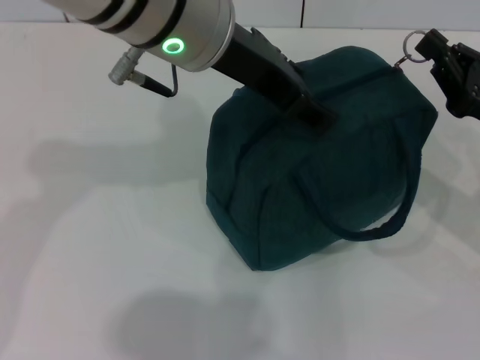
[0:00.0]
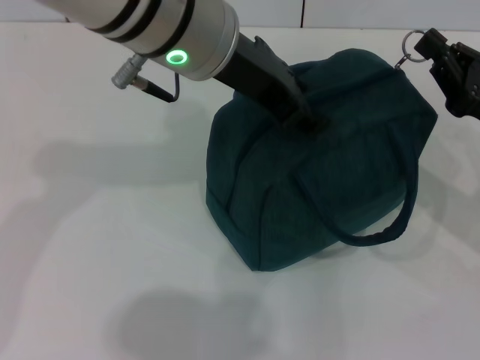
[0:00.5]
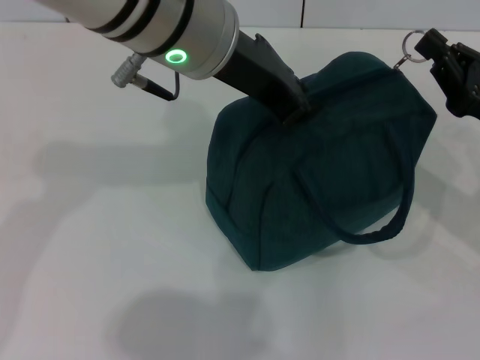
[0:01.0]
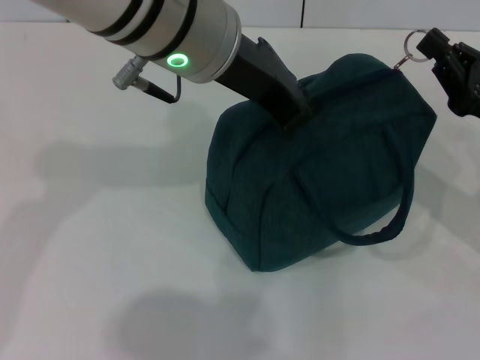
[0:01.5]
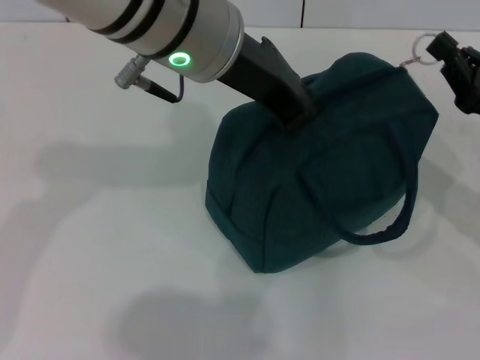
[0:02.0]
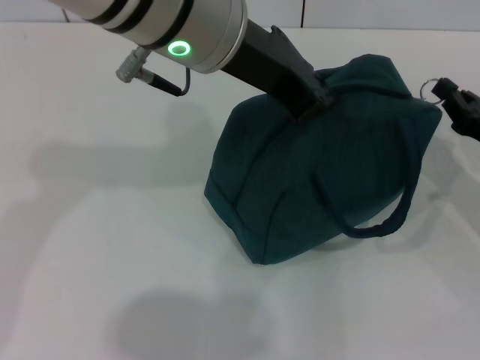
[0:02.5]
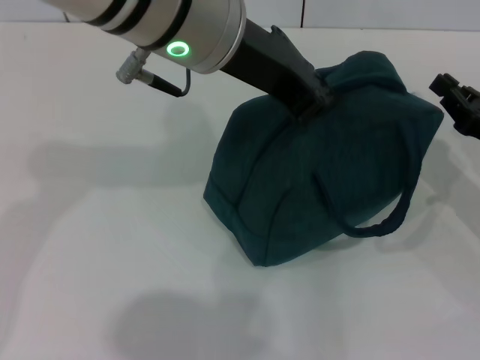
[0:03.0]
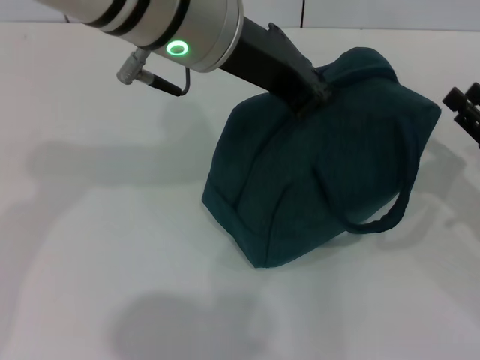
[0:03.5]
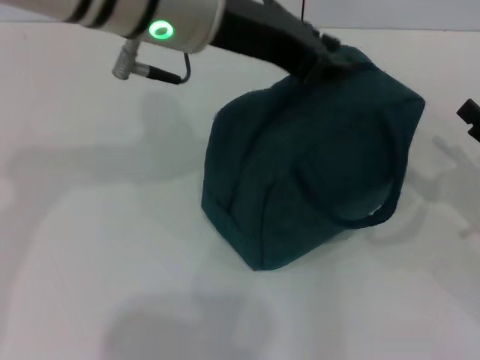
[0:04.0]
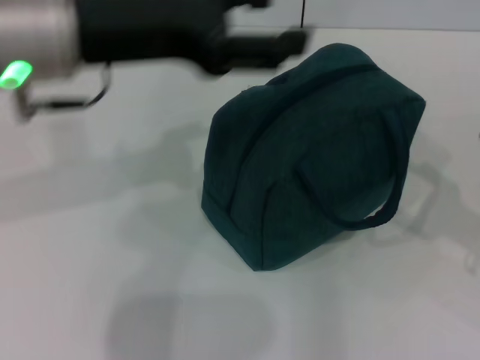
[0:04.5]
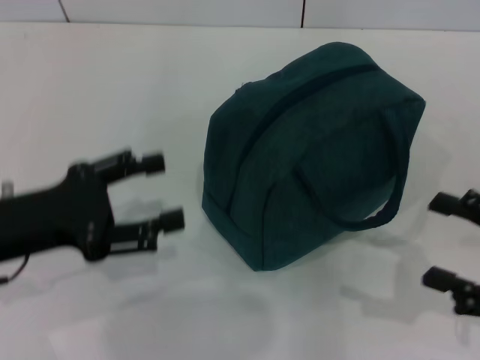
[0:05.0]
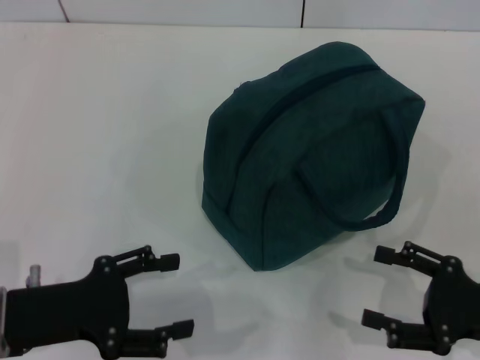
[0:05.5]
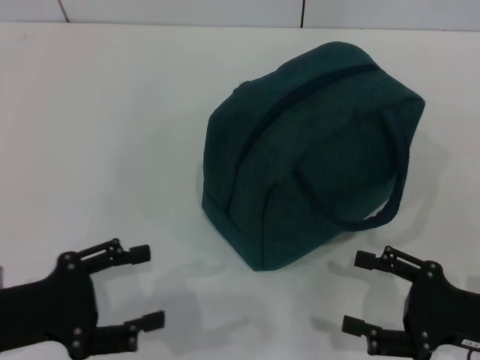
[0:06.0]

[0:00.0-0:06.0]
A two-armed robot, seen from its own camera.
Step, 0:00.0 to 0:02.5: Zip up the lunch bag with your right hand.
Step, 0:03.5 to 0:04.0: Hold the lunch bag with your left hand.
0:00.0 to 0:02.0: The left gripper closes up.
0:02.0 to 0:04.0: The right gripper shifts by about 5 cm, and opens.
0:04.0 to 0:06.0: The right gripper shifts some 10 cm backward and to the left. Meanwhile the left gripper is displaced downward, to the left and backward by approximately 35 cm, and opens its fingers.

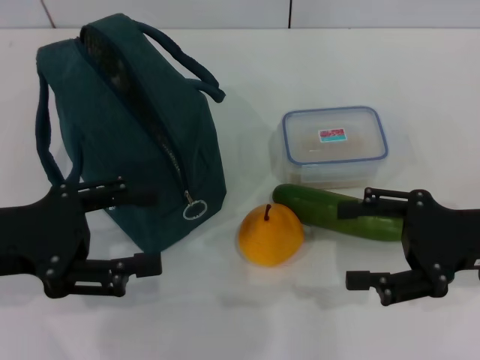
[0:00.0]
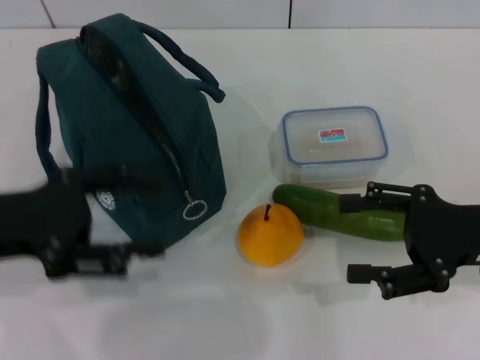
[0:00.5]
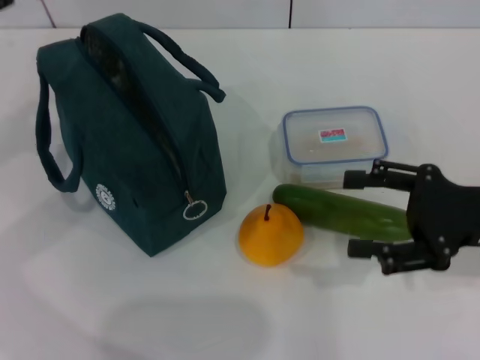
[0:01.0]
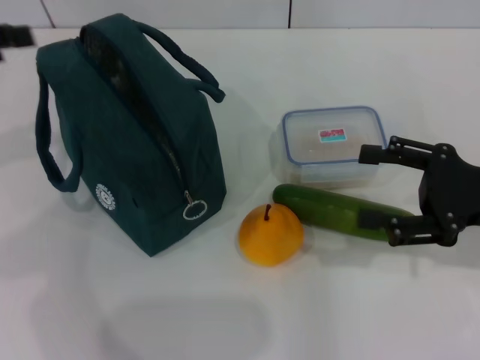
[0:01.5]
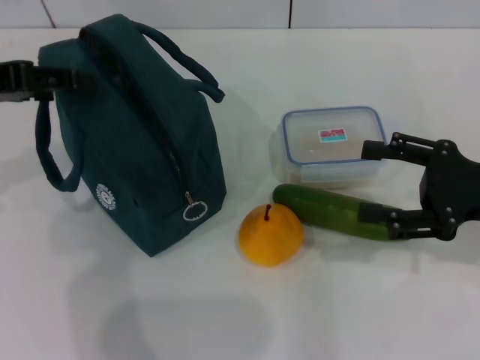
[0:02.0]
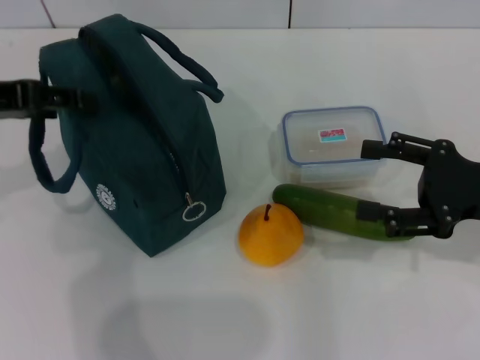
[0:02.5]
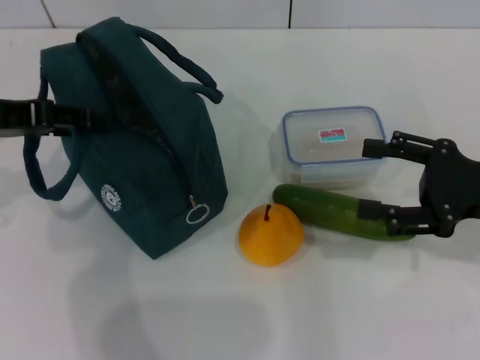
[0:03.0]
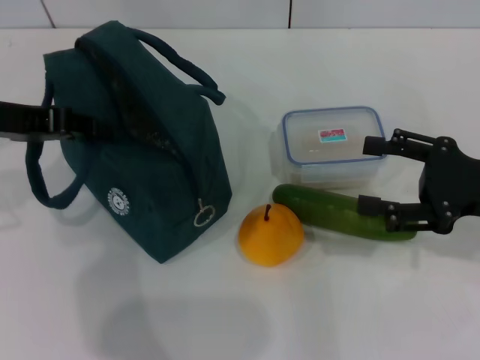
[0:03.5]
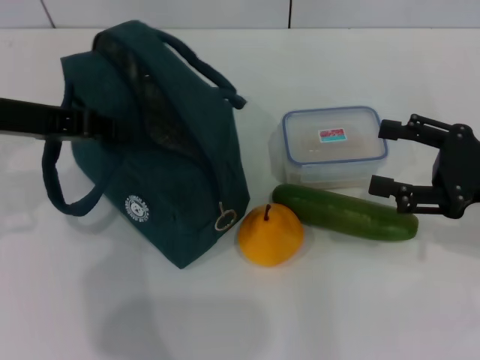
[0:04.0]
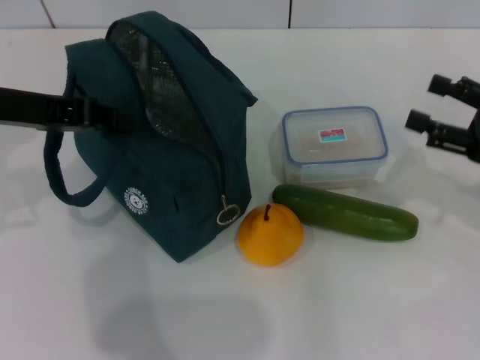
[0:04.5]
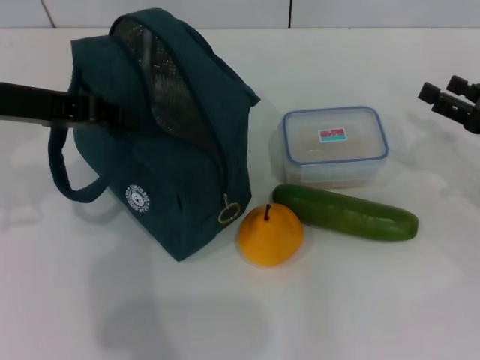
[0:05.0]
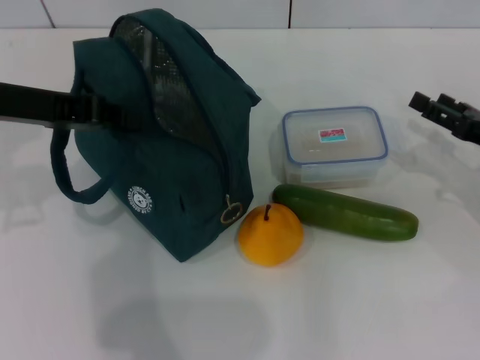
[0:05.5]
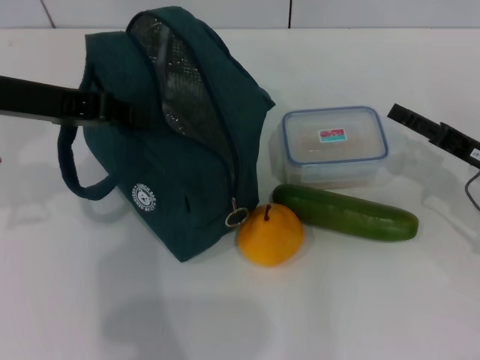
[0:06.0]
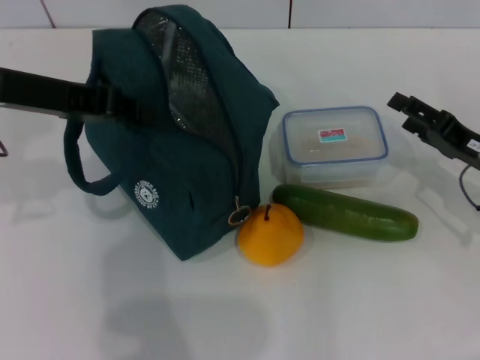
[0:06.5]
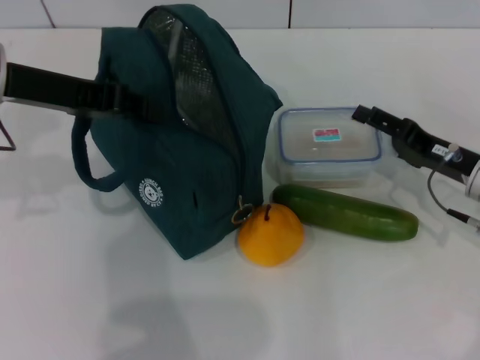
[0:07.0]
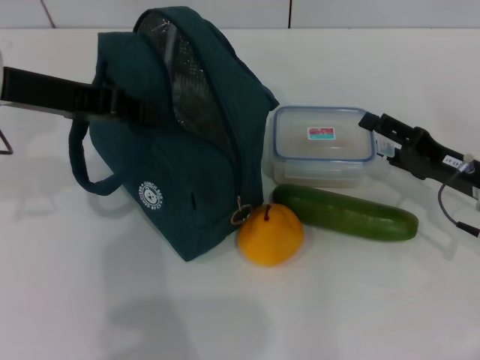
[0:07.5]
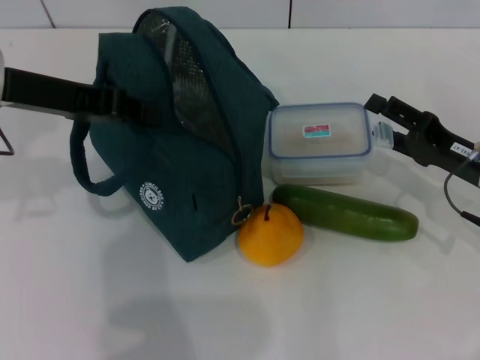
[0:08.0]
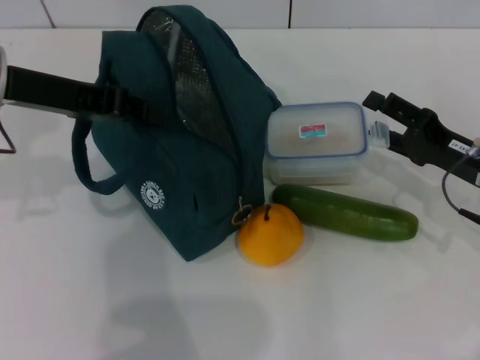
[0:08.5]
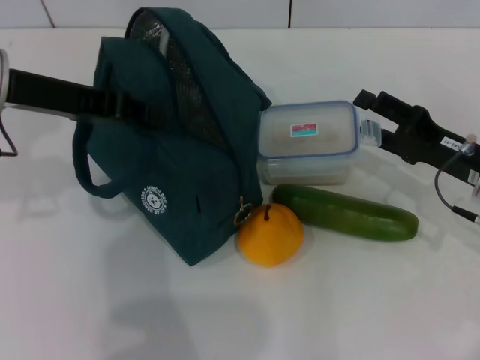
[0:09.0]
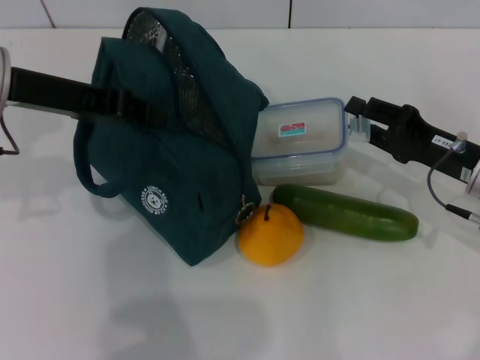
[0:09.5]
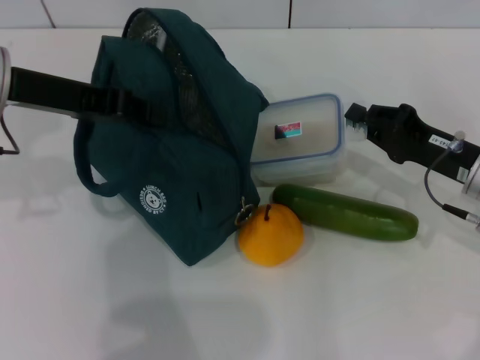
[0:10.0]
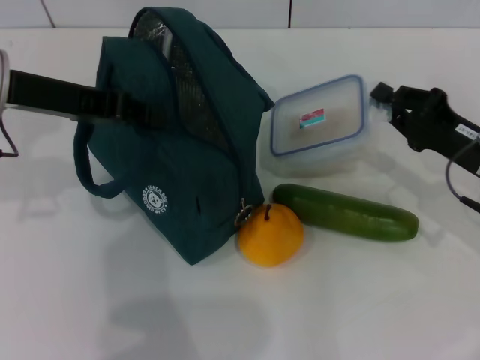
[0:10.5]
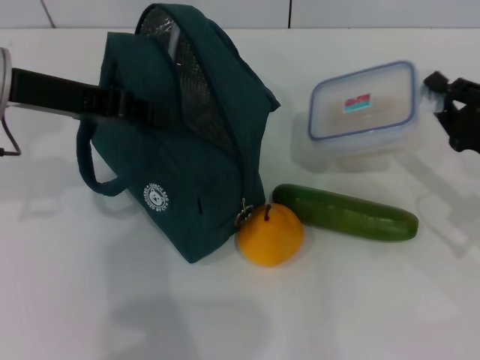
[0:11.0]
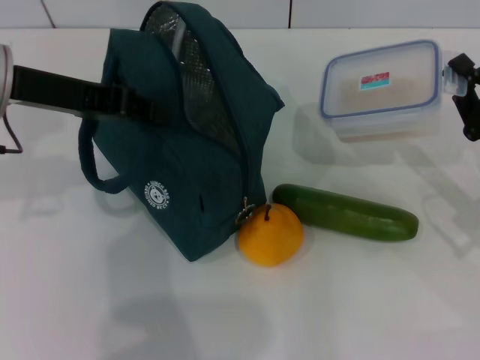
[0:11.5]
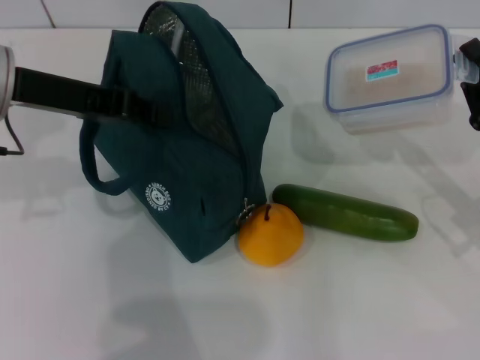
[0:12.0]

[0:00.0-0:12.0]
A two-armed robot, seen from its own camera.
Step, 0:00.0 to 0:05.0: Hold the lunch bag with your left hand.
Step, 0:05.5 to 0:09.5: Pick up the lunch box with your right hand.
0:00.0 to 0:02.0: The left gripper heads upward and forward, covering approximately 10 cm.
0:02.0 to 0:04.0: The left gripper closes.
0:04.0 to 0:06.0: The right gripper goes some 5 cm downward.
0:08.0 to 0:10.0: The right gripper closes its fingers.
0:10.0 to 0:12.0: The right gripper shifts by about 5 cm.

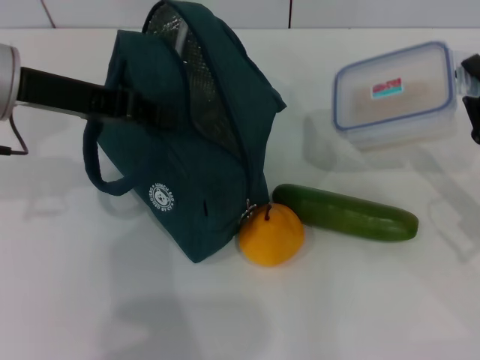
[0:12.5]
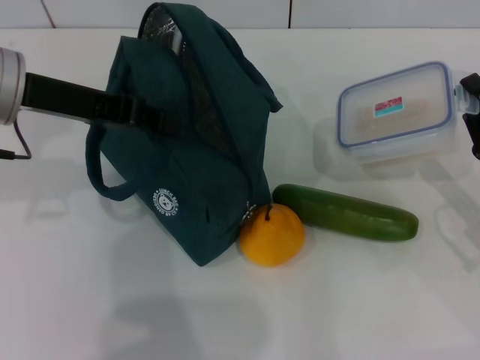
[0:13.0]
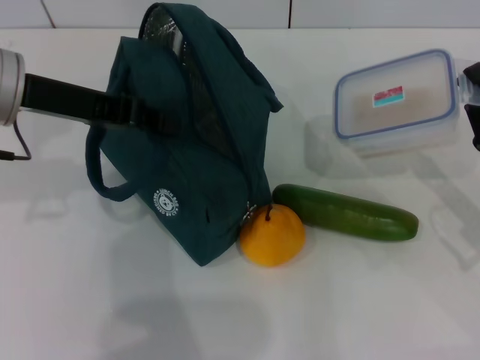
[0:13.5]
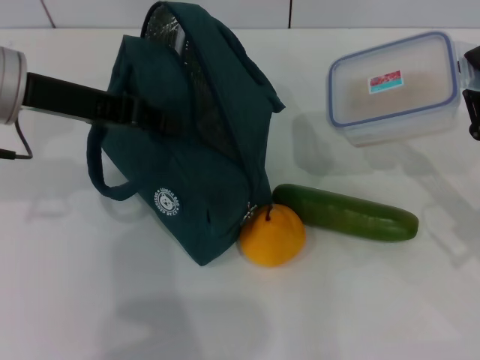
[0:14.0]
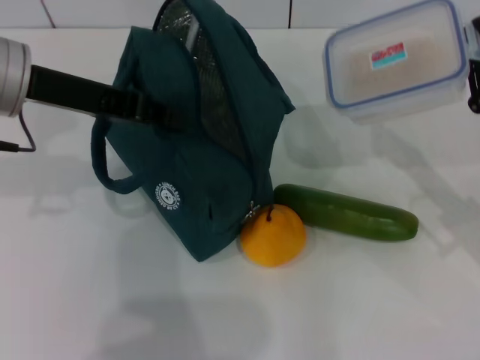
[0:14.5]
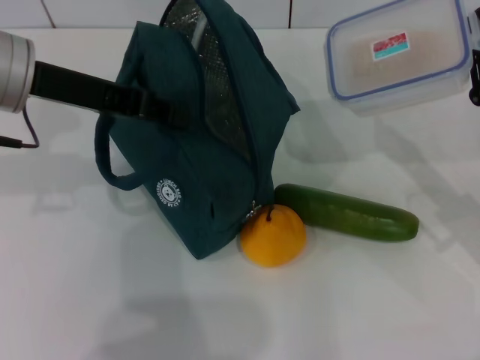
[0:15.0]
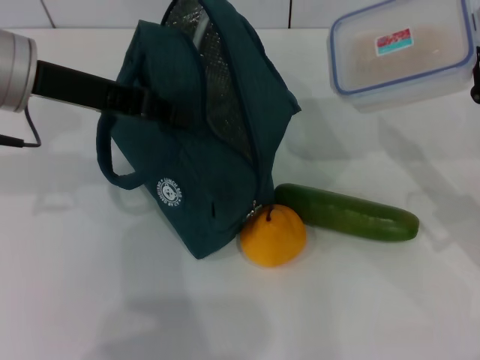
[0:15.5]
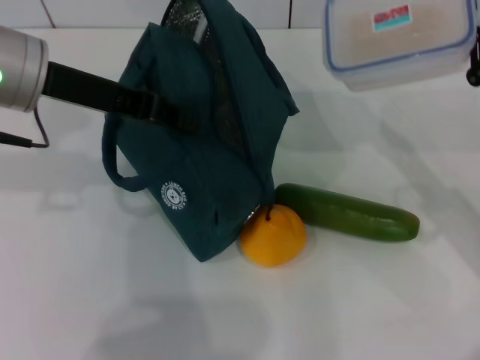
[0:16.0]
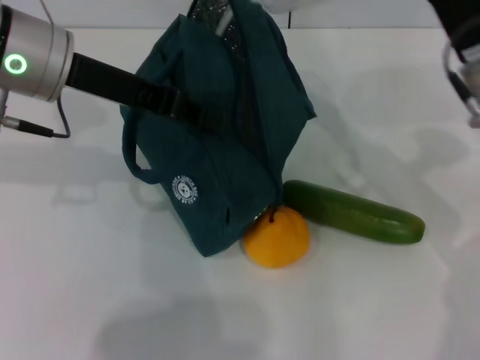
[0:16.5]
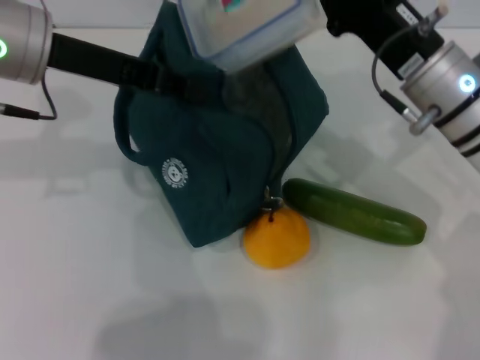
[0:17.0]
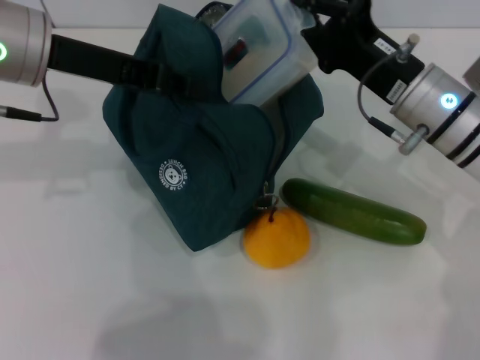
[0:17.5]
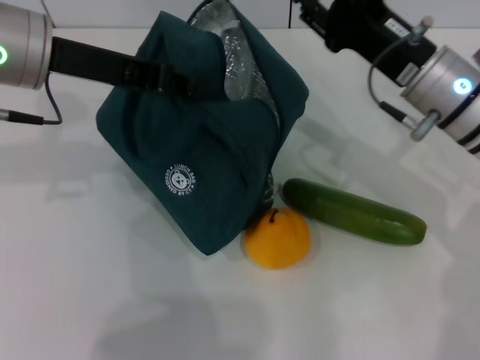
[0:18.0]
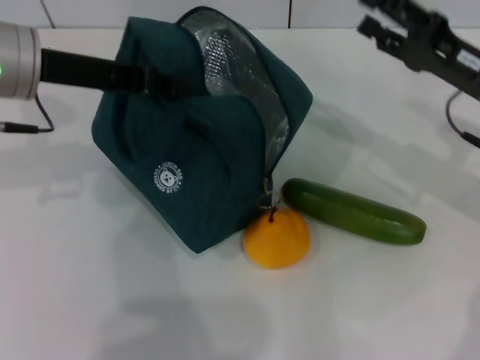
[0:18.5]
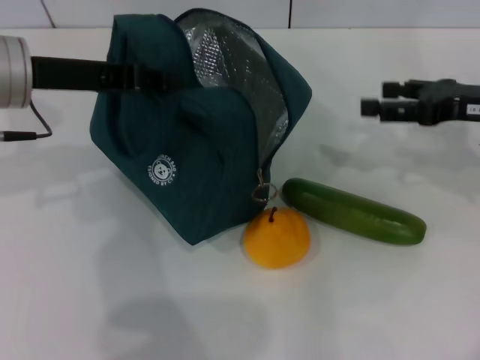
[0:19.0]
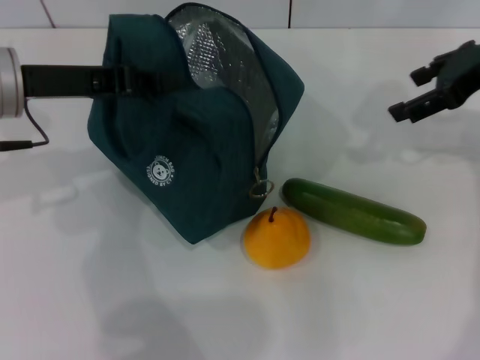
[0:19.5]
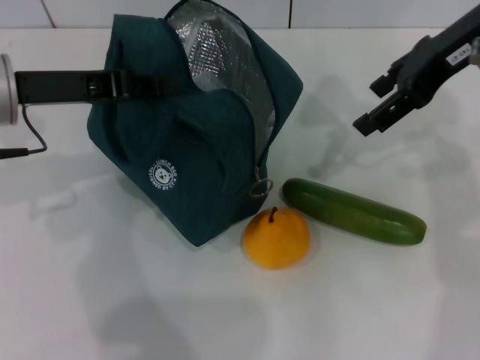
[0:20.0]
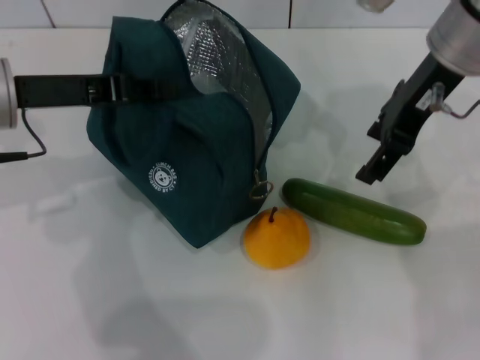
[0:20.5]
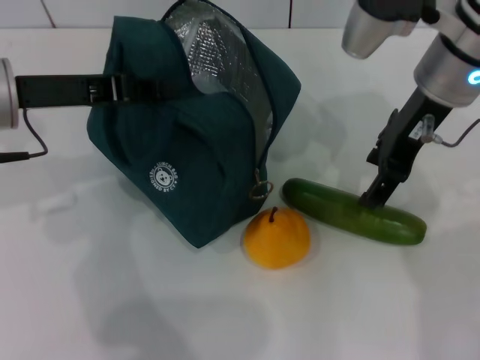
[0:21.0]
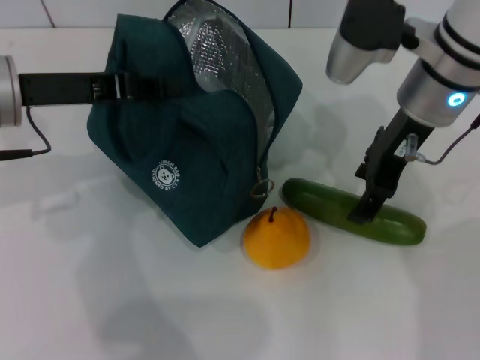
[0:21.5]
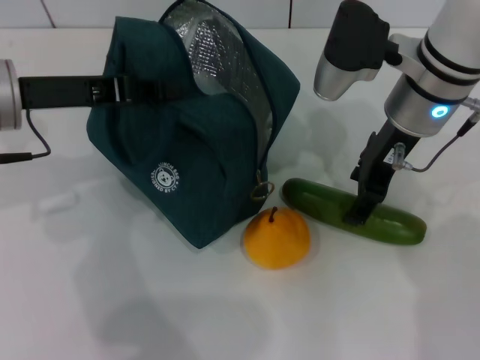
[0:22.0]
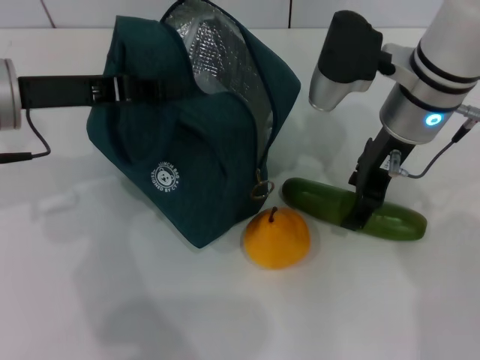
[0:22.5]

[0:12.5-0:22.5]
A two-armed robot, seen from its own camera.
Step, 0:12.5 to 0:17.5: Place the lunch box into the lunch bag with your right hand.
0:12.5 to 0:14.5: The grippers stay close to where they were, moving slightly.
0:14.5 to 0:16.5: The right gripper goes roughly 10 cm to the left, upward and forward.
0:16.5 to 0:18.5: The right gripper moves to the right, approximately 5 cm, and opens its fingers.
0:18.5 to 0:20.5: The right gripper moves upward and to the left, roughly 15 cm.
0:20.5 to 0:22.5: The right gripper travels downward by some 10 cm.
